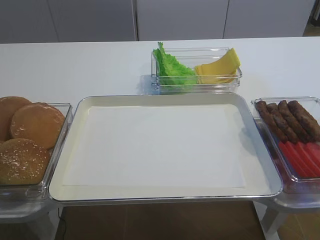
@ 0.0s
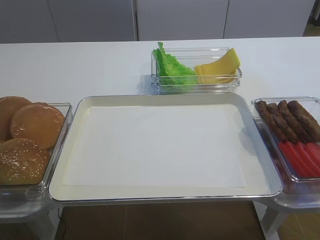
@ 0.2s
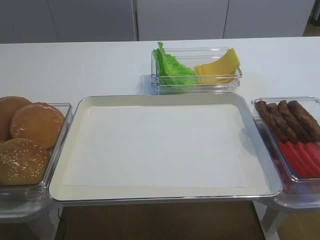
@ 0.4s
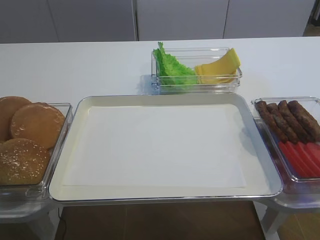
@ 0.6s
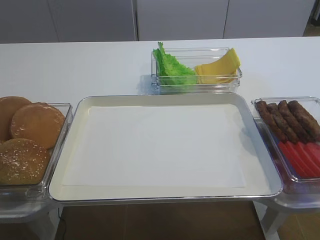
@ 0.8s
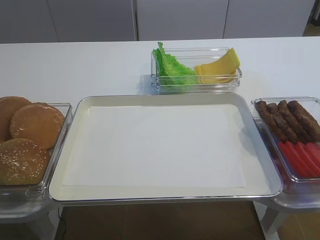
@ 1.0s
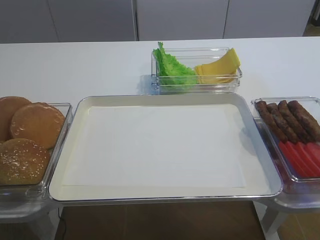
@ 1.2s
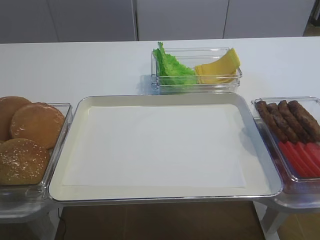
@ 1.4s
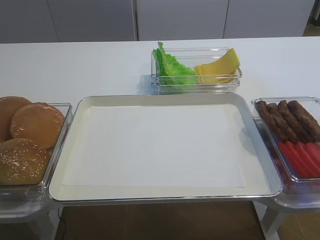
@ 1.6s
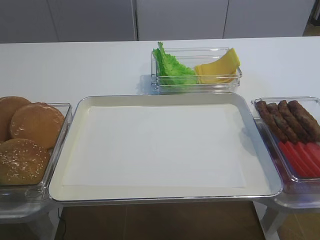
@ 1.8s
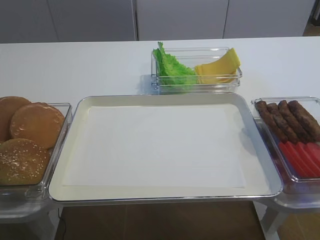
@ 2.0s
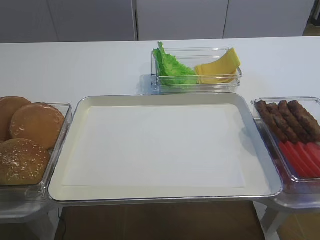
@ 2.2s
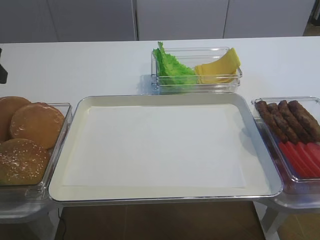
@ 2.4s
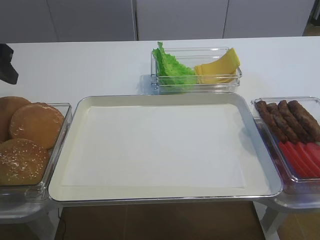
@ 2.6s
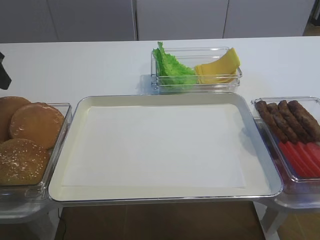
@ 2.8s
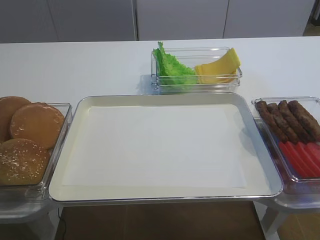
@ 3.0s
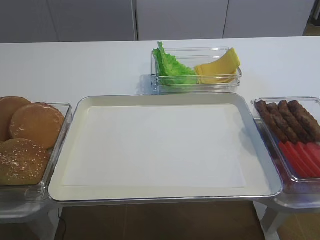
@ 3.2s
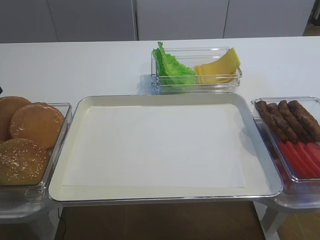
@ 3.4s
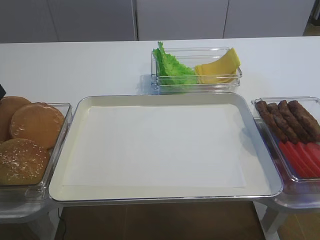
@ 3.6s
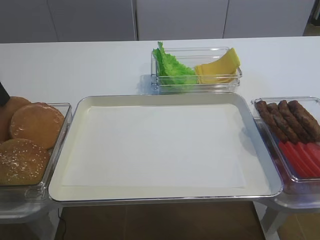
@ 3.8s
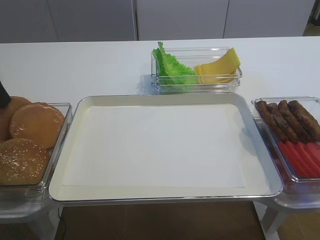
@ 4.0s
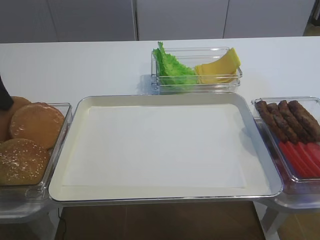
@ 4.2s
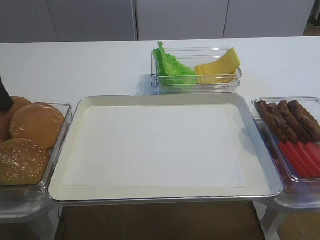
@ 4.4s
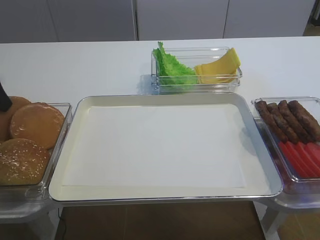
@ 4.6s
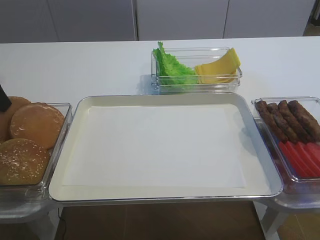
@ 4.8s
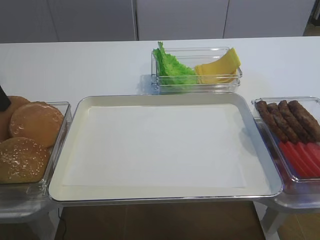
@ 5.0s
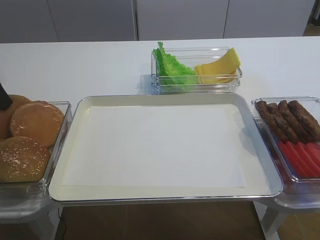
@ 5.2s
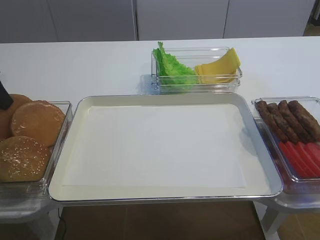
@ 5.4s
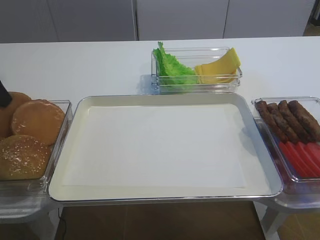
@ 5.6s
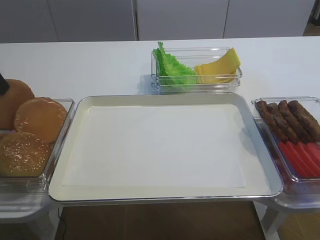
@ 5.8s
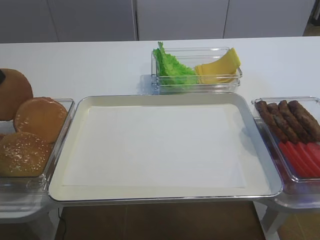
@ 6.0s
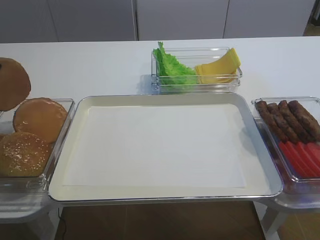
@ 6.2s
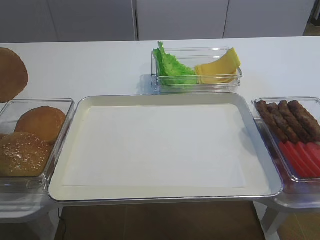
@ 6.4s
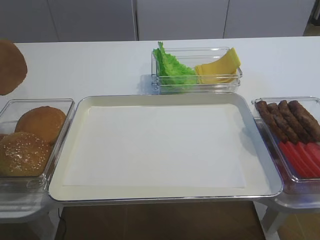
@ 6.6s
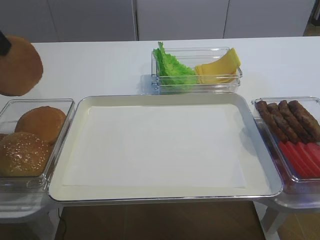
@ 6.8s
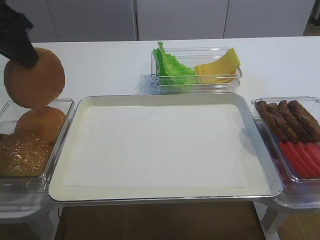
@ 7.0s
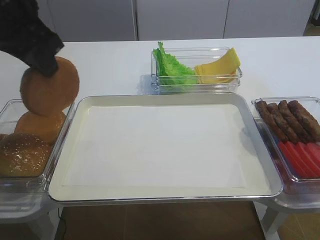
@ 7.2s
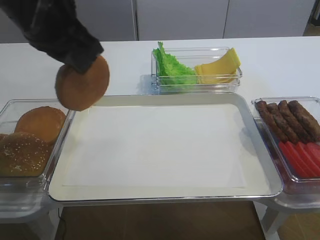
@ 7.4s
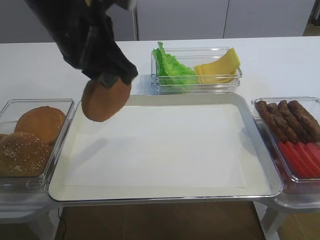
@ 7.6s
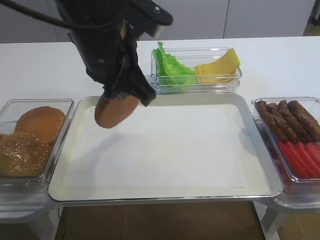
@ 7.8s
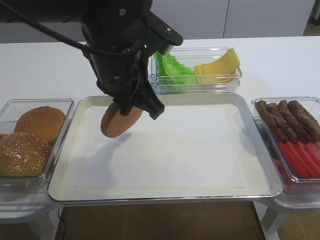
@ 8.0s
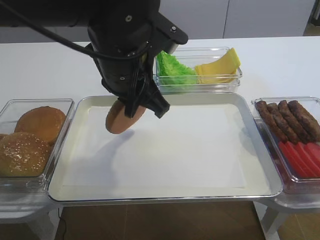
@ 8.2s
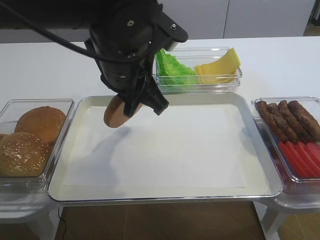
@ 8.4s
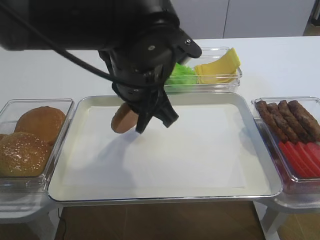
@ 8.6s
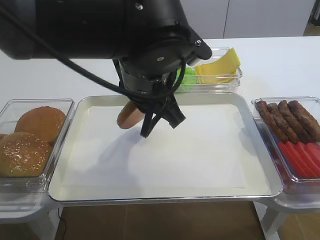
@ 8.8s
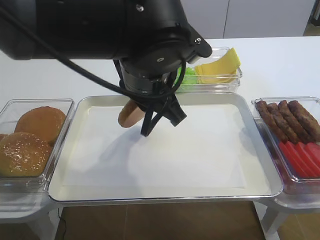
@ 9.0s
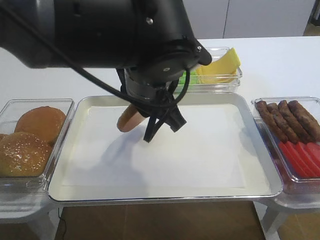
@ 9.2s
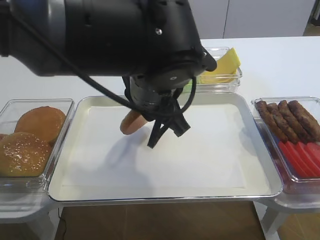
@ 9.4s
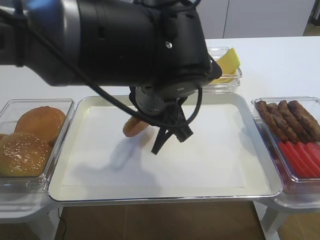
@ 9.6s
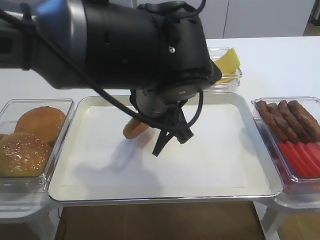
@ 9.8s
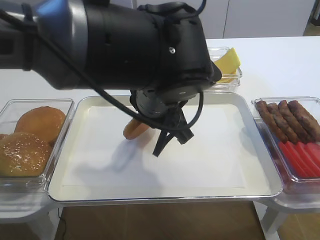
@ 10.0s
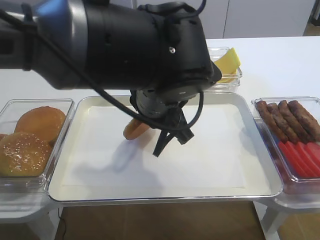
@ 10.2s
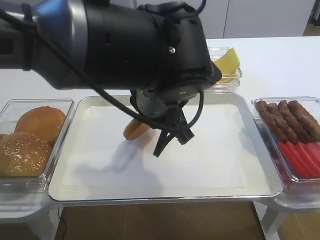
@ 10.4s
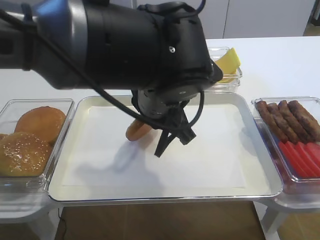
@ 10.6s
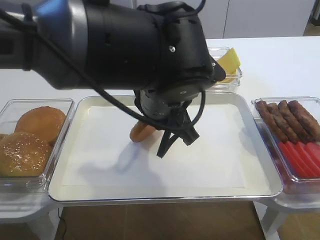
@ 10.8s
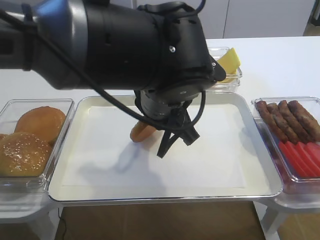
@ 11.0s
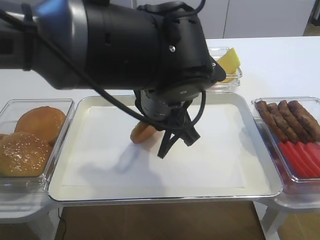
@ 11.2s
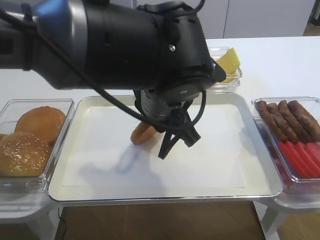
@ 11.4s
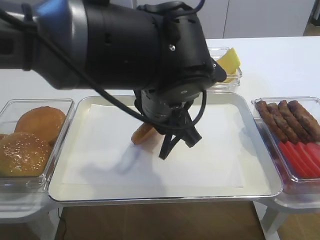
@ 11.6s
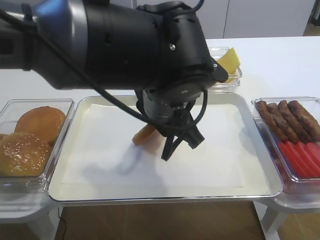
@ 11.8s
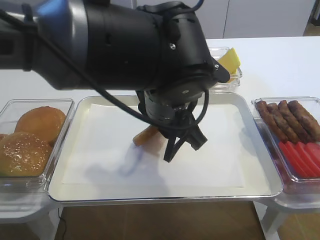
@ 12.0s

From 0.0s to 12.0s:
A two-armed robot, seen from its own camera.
Step, from 0.0s to 6.0s: Pick up the bread slice with the left gripper.
From 4.4s to 6.0s: The left gripper closes up.
From 6.0s to 7.6s: The left gripper goes approximately 25 cm to the right.
From 7.6s to 9.0s: The left gripper moves to the right and downward, approximately 10 cm.
From 9.0s to 12.0s: The grippers stay close to where they were, moving slightly.

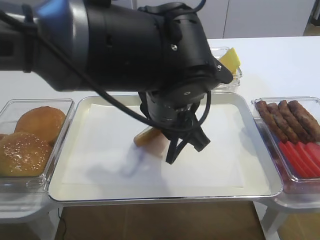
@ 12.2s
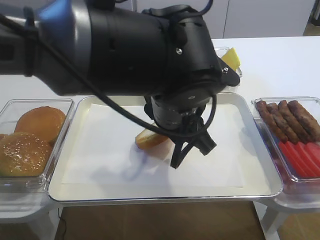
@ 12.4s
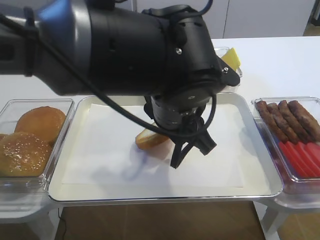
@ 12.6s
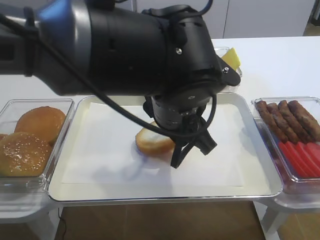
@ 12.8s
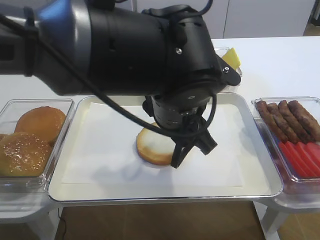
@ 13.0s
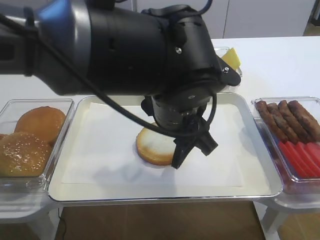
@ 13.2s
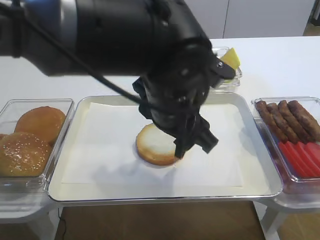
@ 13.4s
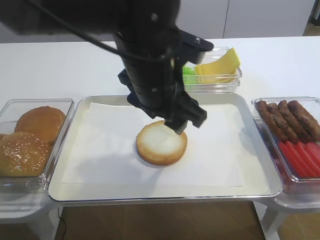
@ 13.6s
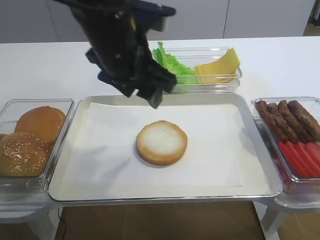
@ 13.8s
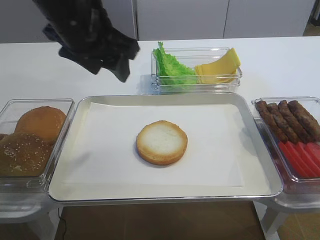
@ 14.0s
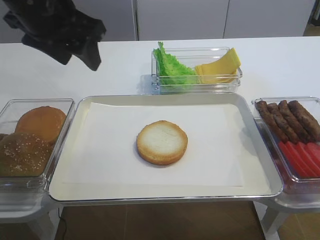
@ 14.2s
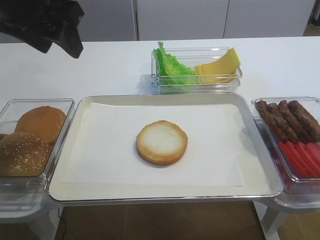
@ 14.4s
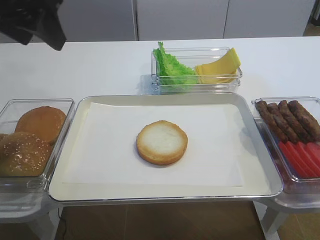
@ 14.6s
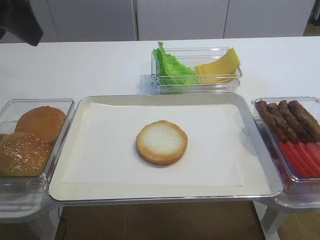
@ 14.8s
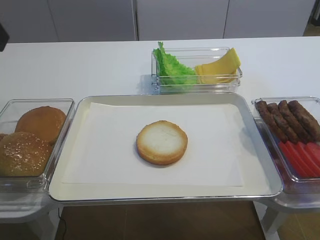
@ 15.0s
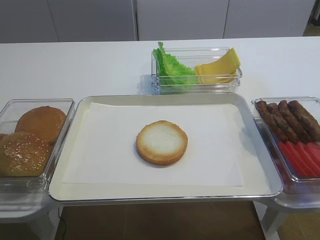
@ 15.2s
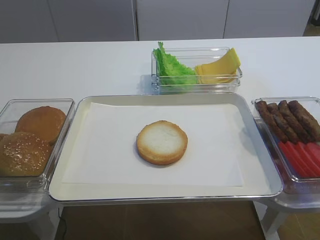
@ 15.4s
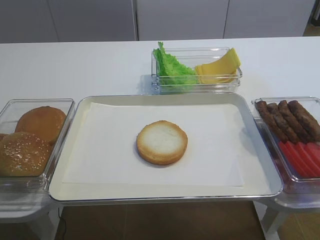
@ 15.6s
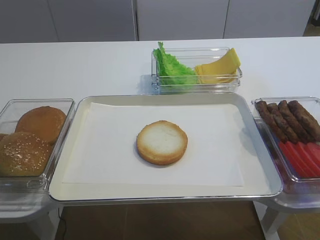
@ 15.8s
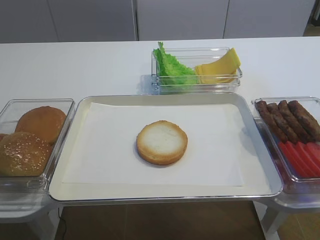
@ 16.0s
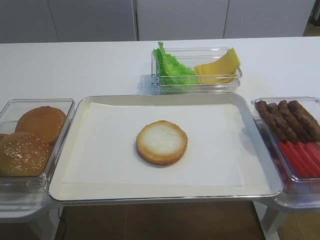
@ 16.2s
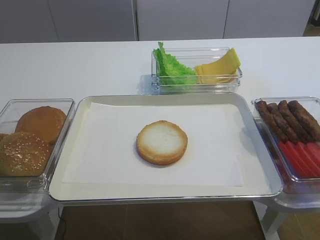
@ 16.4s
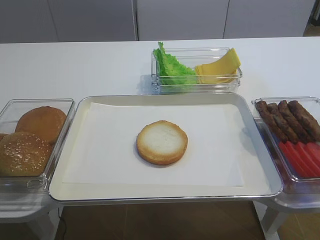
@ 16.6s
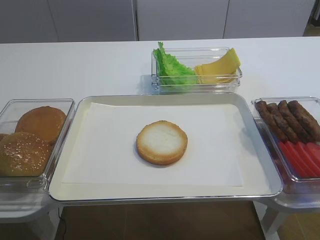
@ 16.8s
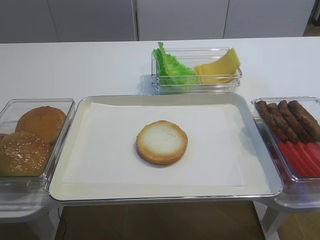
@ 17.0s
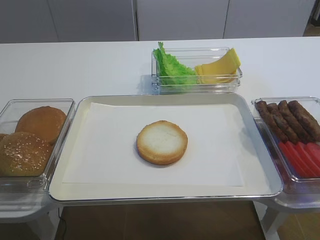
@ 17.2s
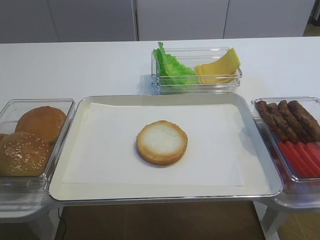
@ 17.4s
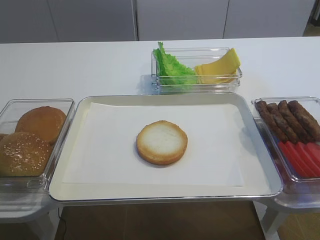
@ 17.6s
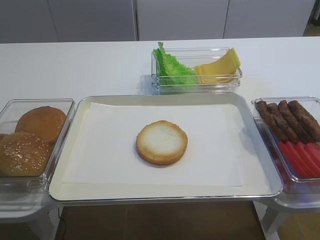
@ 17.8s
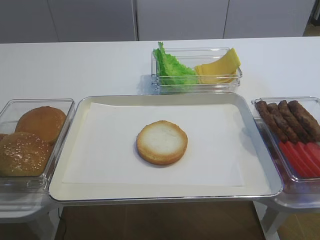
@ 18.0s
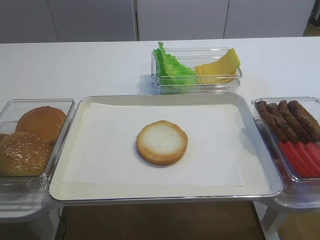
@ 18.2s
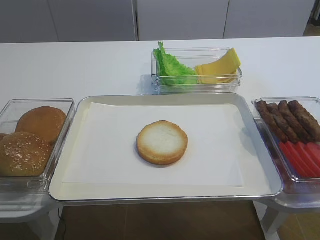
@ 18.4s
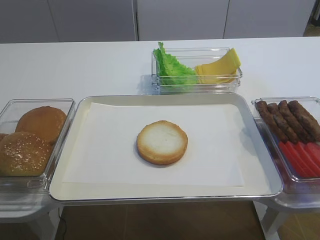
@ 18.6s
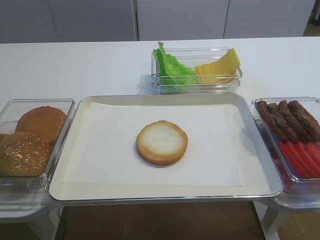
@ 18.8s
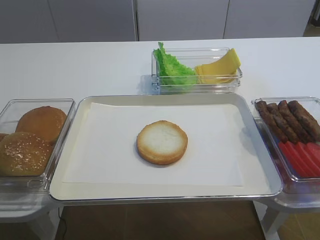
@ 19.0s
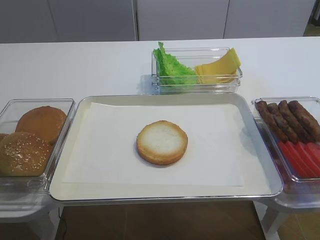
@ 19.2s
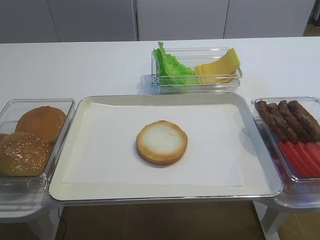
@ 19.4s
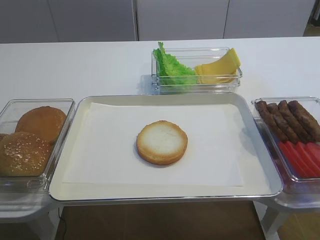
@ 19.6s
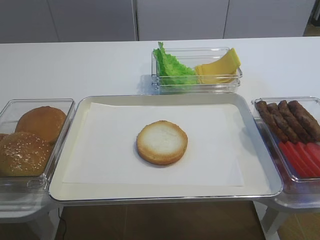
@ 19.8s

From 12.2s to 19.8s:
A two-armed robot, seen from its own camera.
From 12.2s to 13.8s: The left gripper goes roughly 5 cm to the left, and opens its fingers.
From 13.8s to 15.2s: The left gripper is displaced to the left, backward and upward by approximately 25 cm.

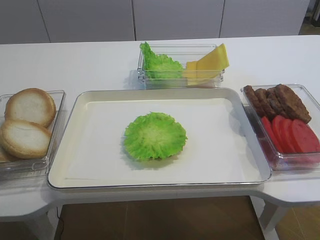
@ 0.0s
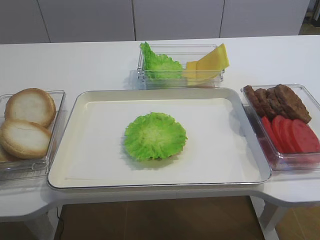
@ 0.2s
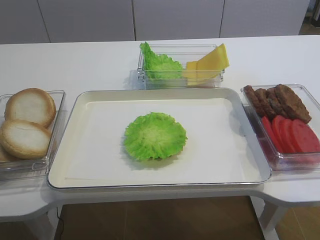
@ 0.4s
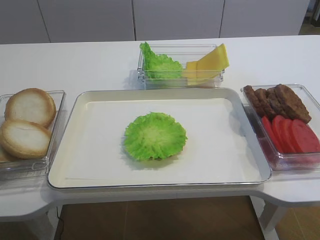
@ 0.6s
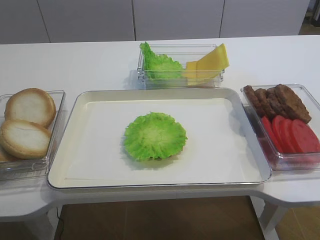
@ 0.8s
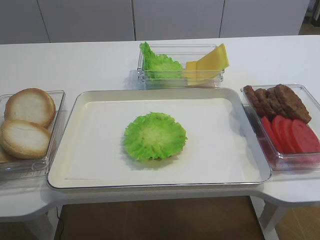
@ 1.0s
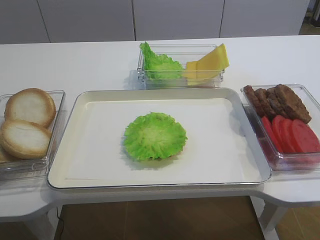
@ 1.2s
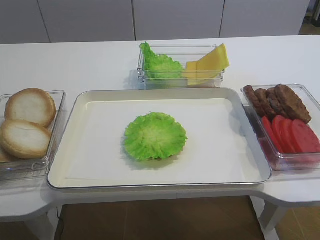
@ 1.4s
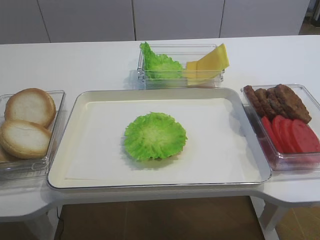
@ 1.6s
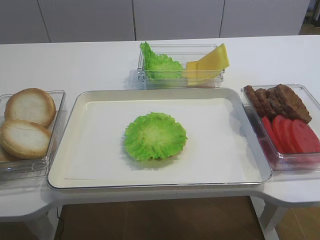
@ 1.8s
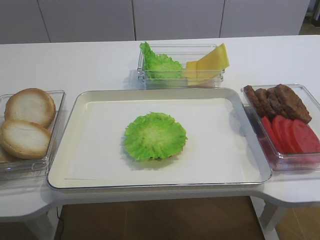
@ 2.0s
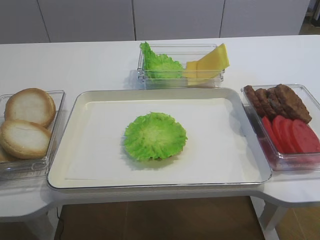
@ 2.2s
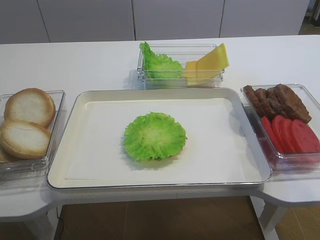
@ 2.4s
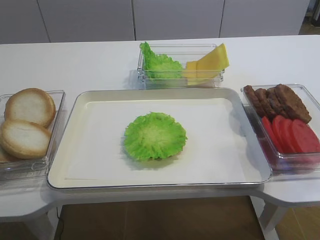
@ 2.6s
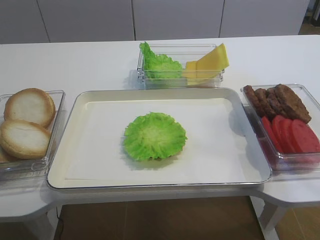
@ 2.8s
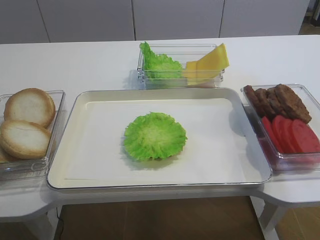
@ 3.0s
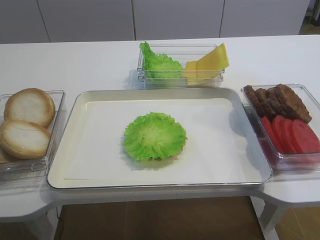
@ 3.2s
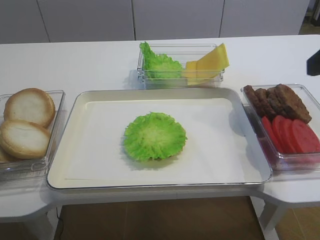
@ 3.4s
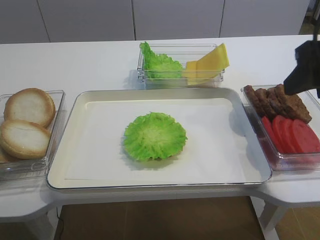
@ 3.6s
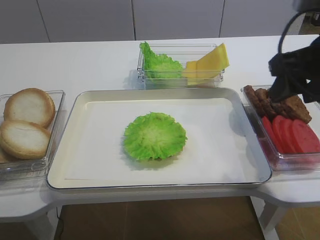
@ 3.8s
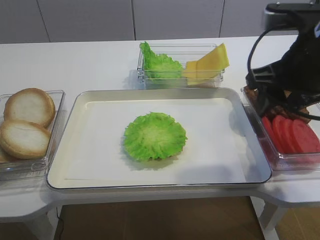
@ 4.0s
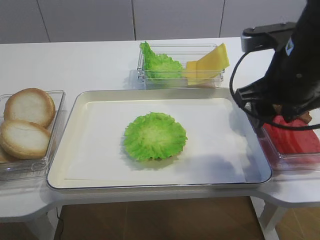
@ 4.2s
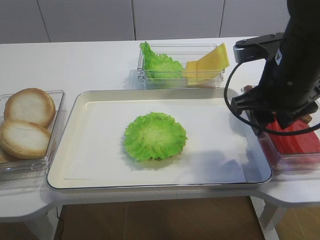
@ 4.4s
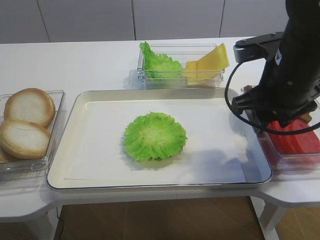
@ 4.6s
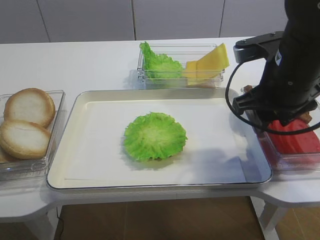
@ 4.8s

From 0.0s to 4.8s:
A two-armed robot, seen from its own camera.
From 1.6s to 3.2s: The right gripper travels forward and upward by approximately 20 cm, and opens.
From 3.2s to 4.8s: The right gripper goes about 15 cm downward, forward and to the left.
